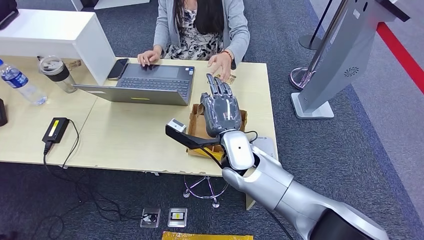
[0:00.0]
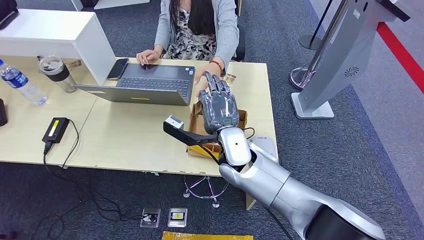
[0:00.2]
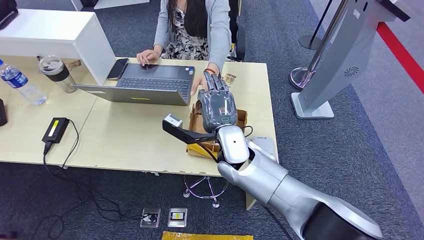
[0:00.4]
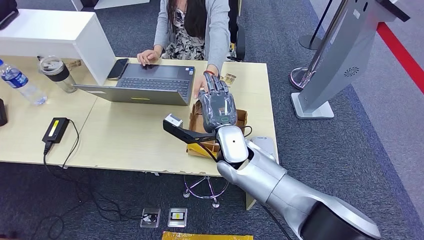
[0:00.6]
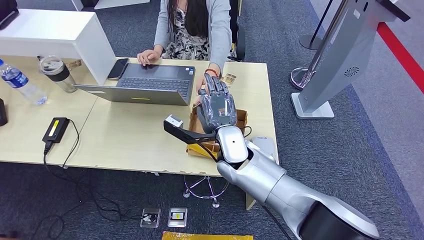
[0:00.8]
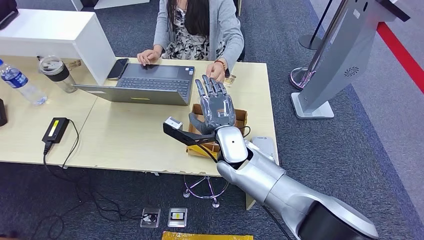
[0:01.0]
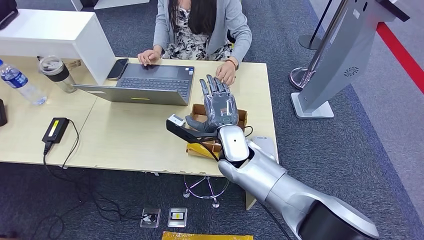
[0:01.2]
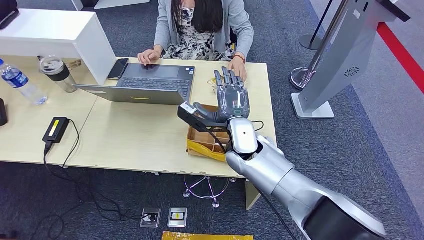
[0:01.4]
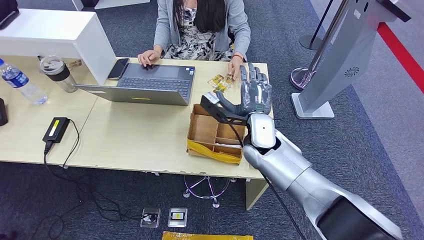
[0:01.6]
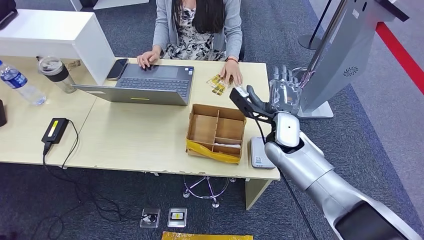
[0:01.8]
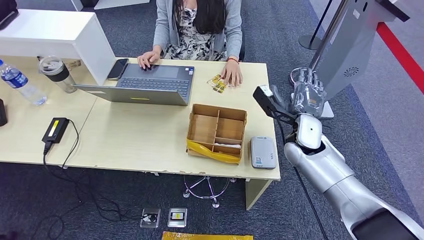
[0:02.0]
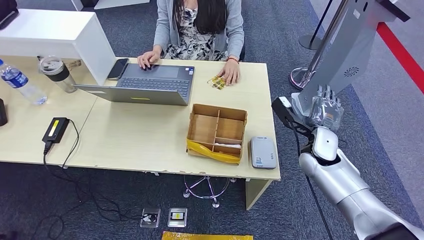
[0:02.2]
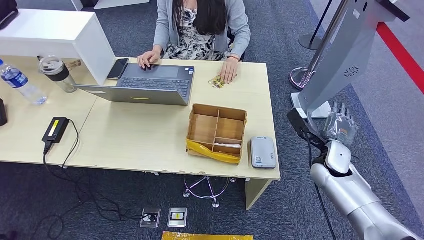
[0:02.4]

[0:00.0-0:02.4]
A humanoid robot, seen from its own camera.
Step, 0.0 to 2.4 s: Hand the room key to the person.
0.0 to 1.2 s: The hands move only a little.
1.2 to 2.4 s: The right hand travels to the right by about 25 cm.

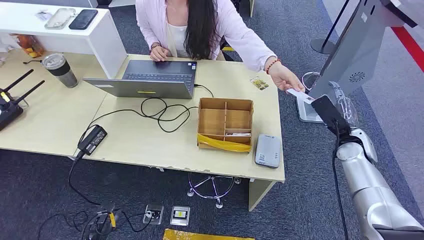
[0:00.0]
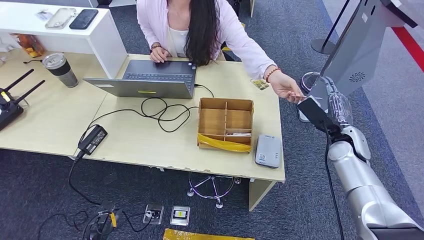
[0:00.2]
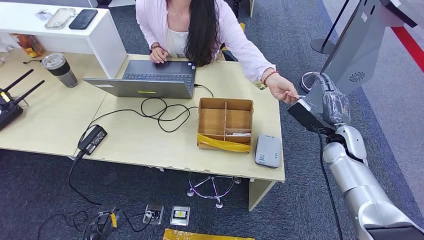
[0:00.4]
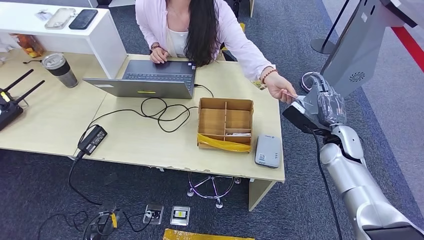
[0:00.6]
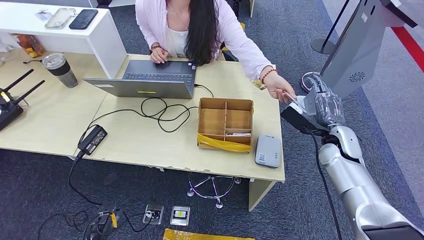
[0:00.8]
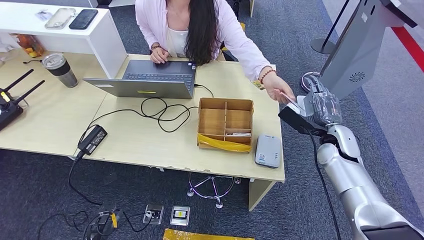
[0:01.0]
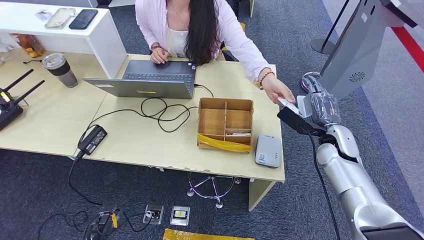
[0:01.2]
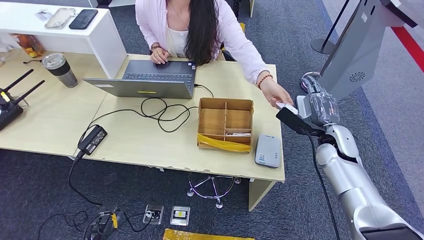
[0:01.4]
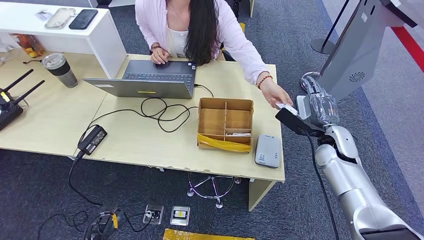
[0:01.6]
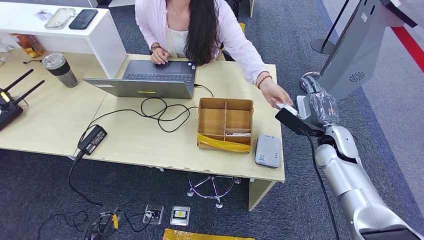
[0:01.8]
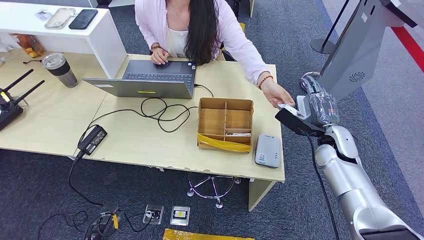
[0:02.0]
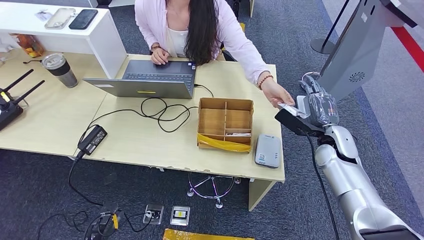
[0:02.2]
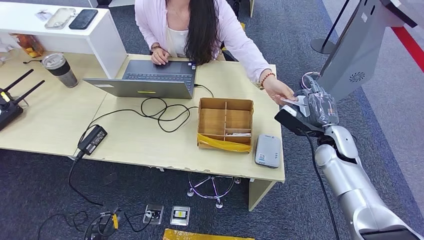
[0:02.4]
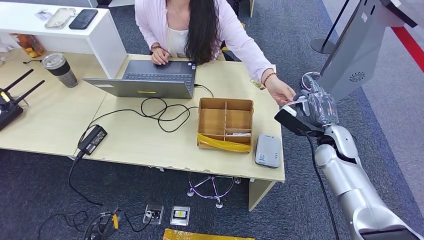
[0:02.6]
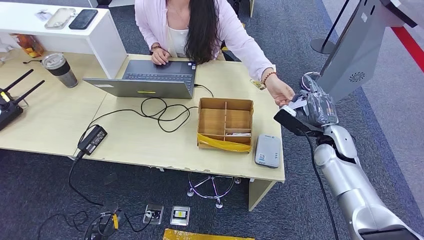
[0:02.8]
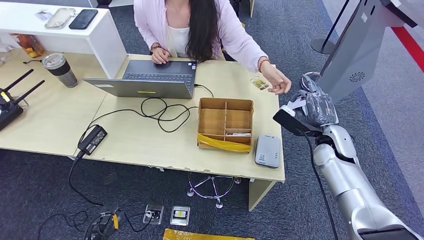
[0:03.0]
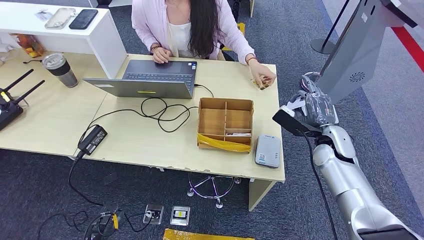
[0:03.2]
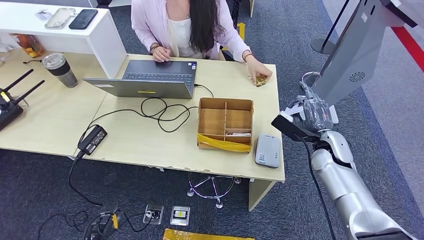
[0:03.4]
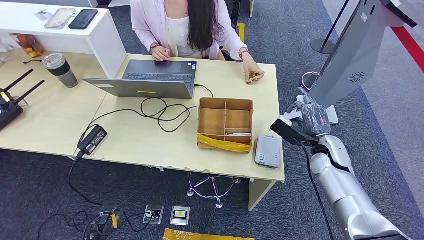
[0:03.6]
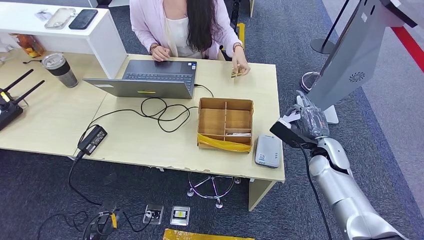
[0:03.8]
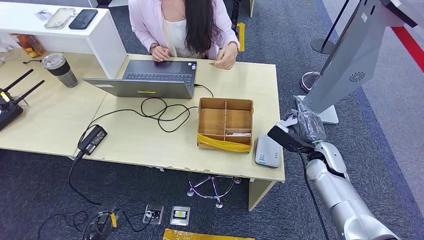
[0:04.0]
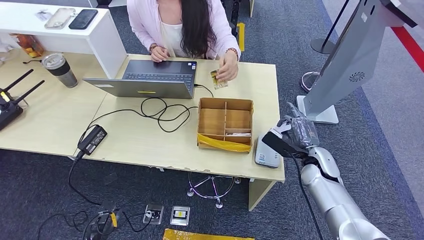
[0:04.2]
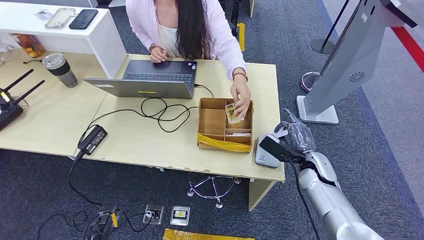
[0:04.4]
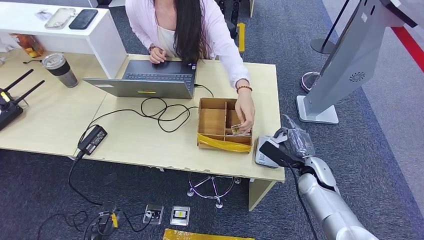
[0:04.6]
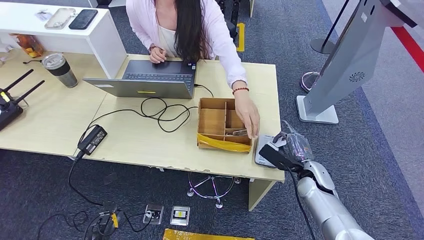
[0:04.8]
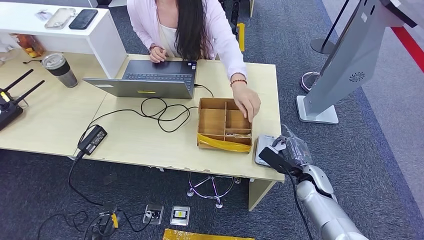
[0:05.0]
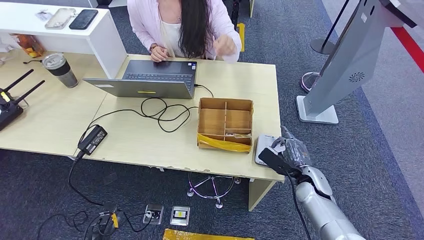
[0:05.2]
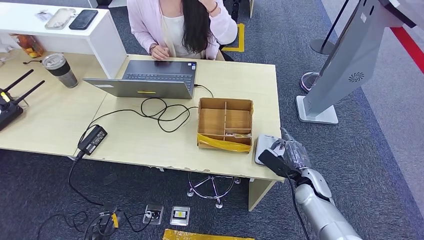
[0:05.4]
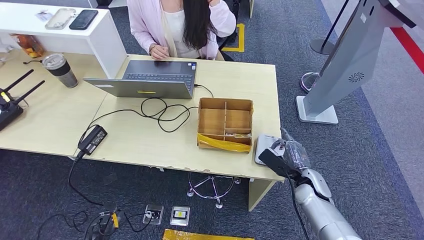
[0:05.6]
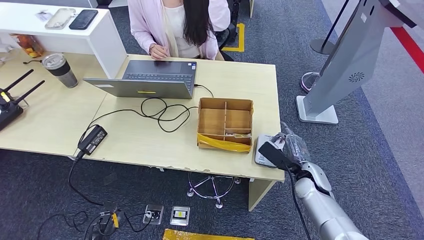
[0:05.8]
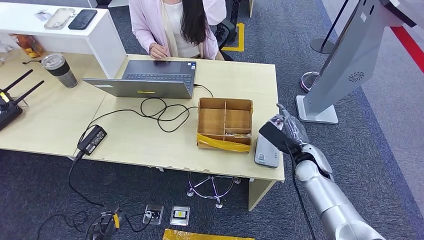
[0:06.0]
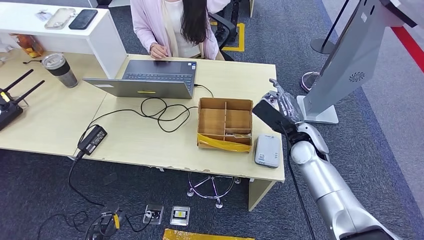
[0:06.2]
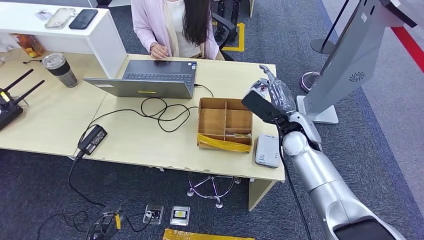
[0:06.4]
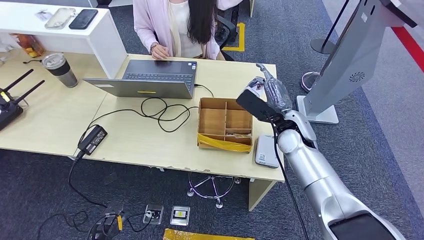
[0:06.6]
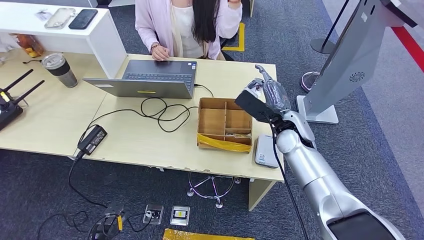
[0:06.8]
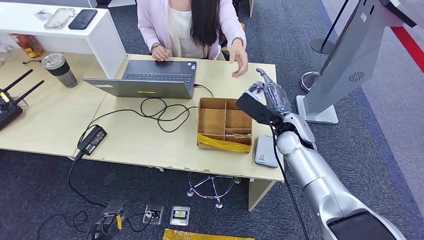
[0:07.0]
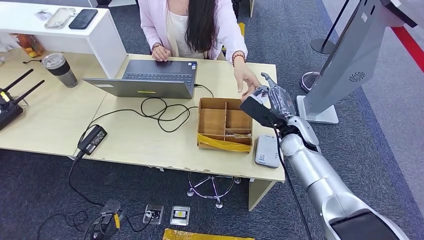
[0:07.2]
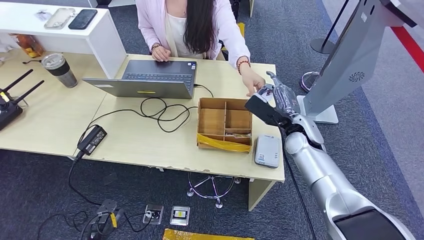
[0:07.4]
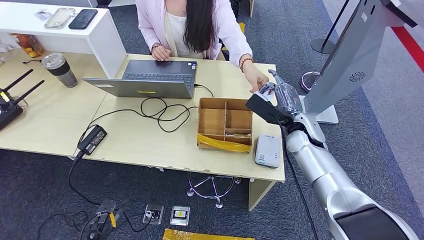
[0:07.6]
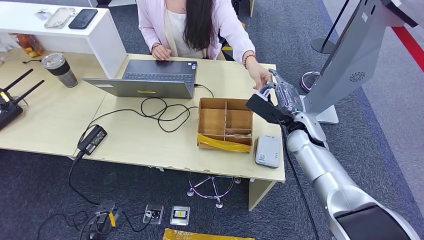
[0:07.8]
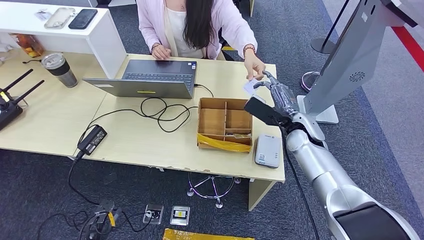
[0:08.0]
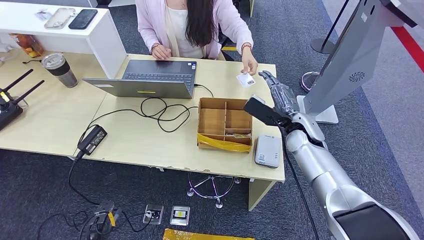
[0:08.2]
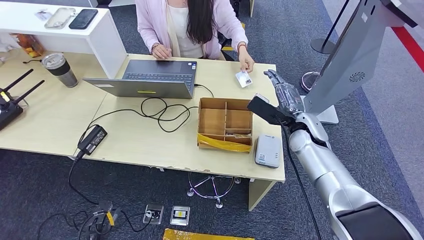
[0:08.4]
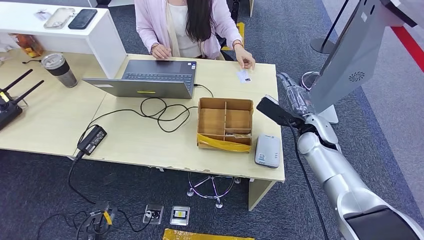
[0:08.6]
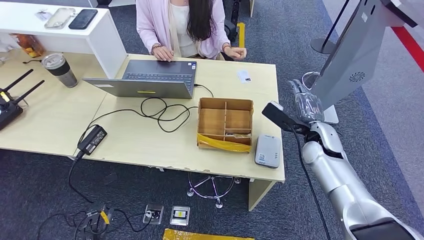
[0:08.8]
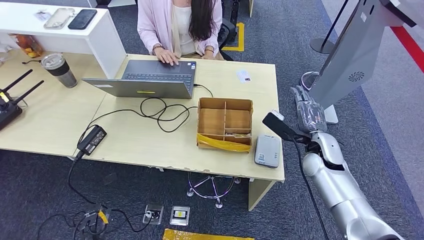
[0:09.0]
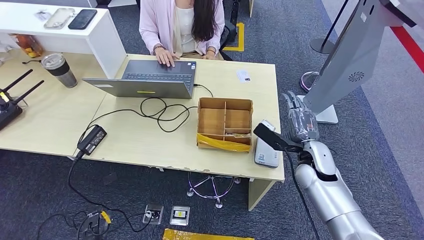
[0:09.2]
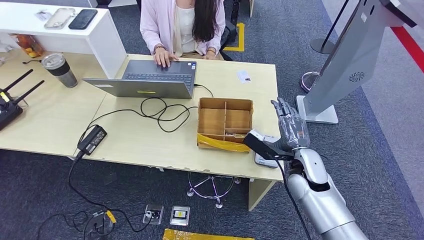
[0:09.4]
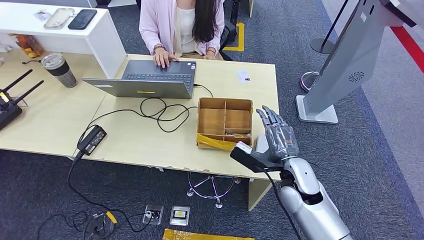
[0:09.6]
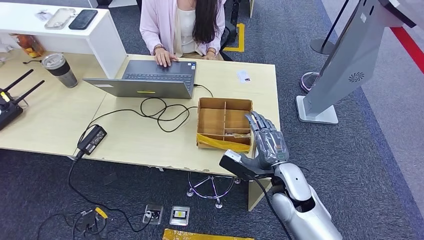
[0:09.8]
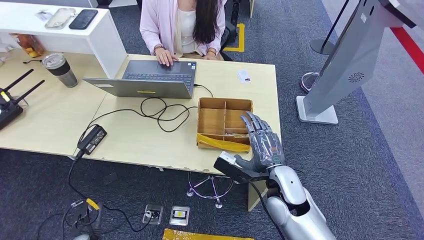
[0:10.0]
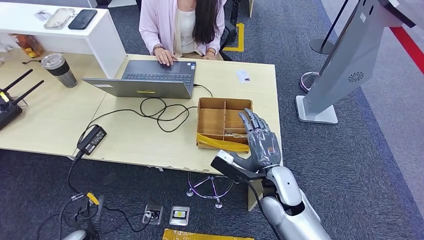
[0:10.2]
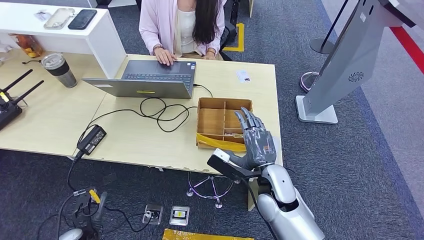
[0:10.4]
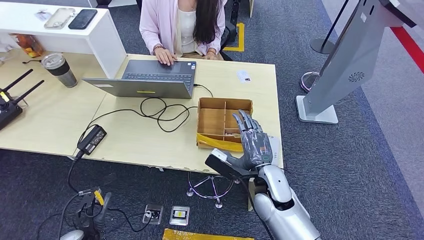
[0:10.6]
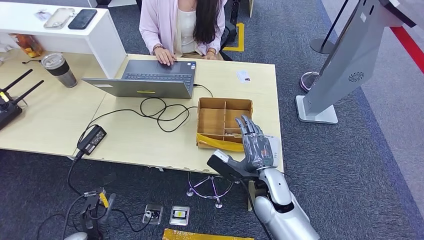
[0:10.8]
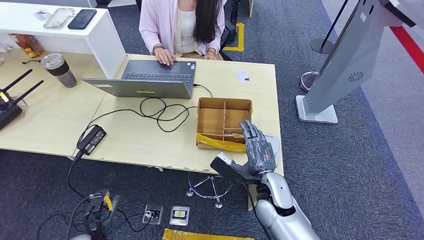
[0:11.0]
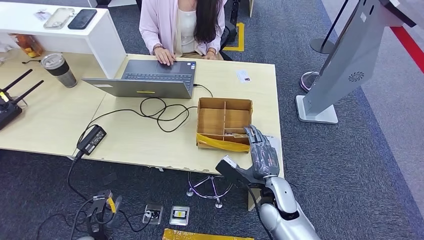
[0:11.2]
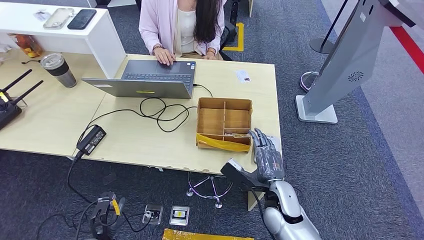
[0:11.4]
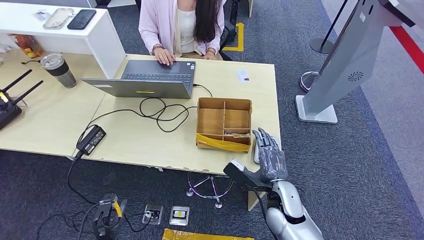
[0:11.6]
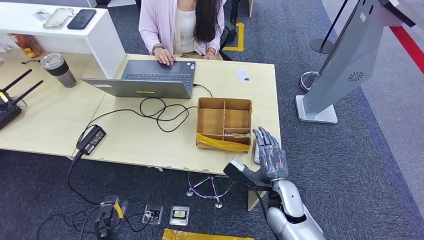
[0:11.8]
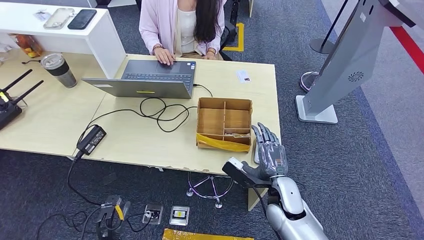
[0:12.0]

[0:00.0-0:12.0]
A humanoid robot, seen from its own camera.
Step, 0.0 to 3.8 s: Take the ID card from the person's hand.
Step, 4.0 to 5.6 s: Place the ID card on the card reader.
Step, 5.8 to 8.0 s: Hand the ID card to the person.
1.6 to 3.0 s: Both hands stay about where they are.
3.0 to 4.4 s: The right hand goes approximately 10 cm downward.
4.4 to 6.0 s: The hands make only small movements.
6.0 to 7.6 s: The right hand is displaced upward by about 5 cm.
7.6 to 9.0 s: The right hand goes about 5 cm to the right.
9.0 to 10.4 s: The left hand travels upward by about 5 cm, while the right hand is displaced to the left and backward by some 15 cm.
10.4 to 12.0 s: The right hand moves about 5 cm. Meanwhile the left hand ends up some 5 cm from where it was.

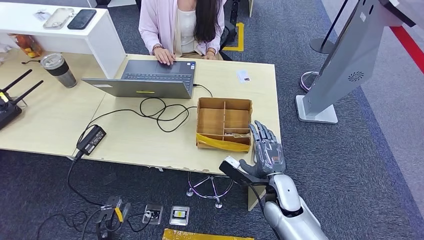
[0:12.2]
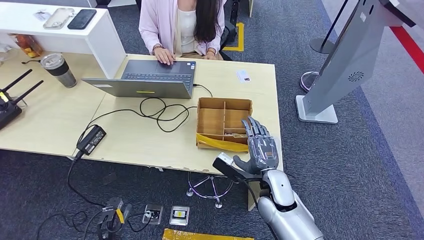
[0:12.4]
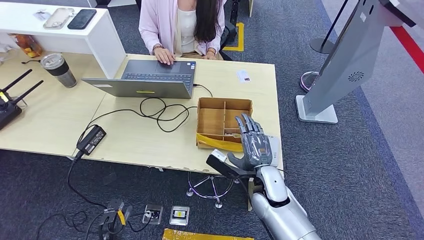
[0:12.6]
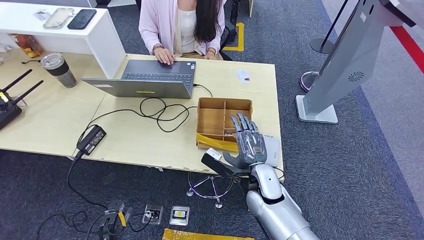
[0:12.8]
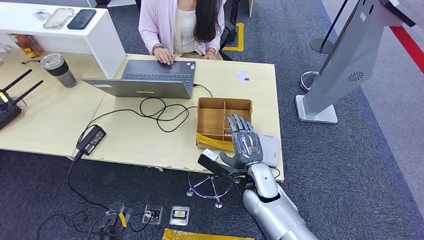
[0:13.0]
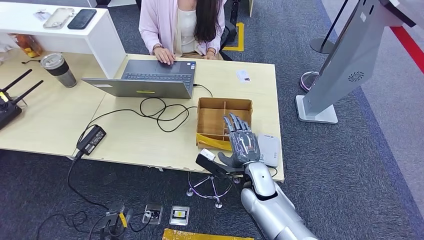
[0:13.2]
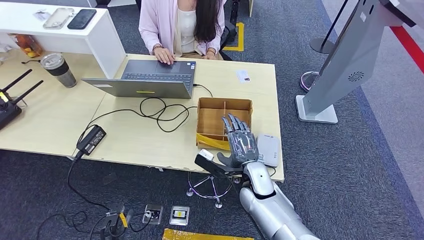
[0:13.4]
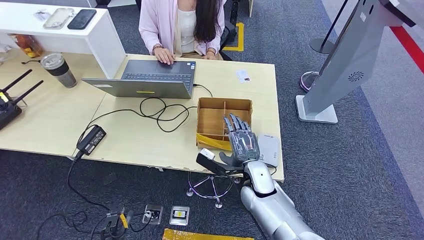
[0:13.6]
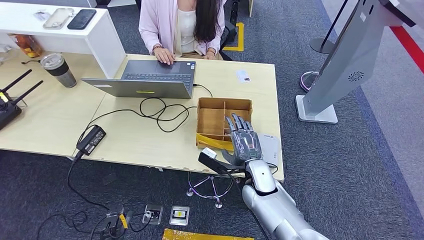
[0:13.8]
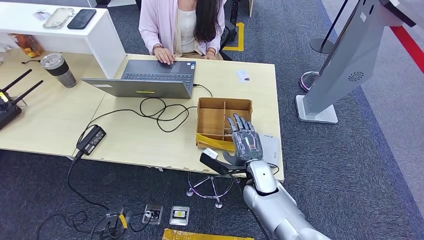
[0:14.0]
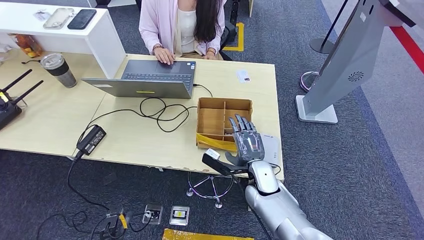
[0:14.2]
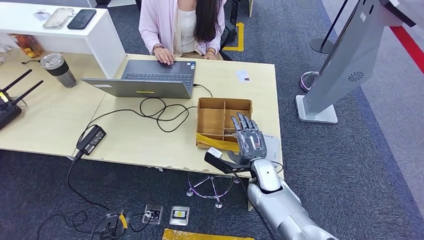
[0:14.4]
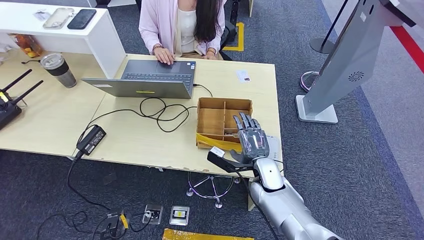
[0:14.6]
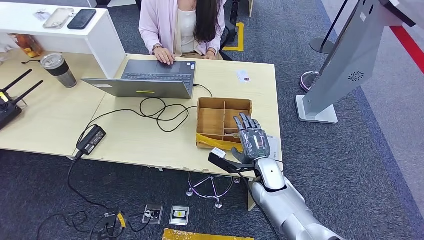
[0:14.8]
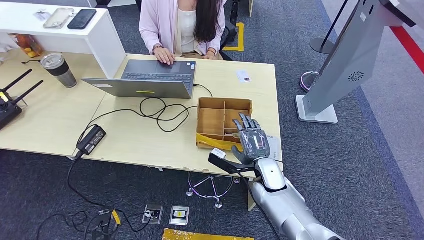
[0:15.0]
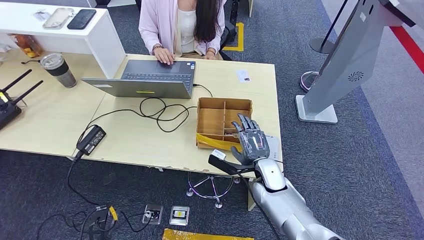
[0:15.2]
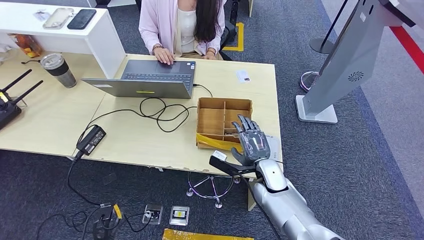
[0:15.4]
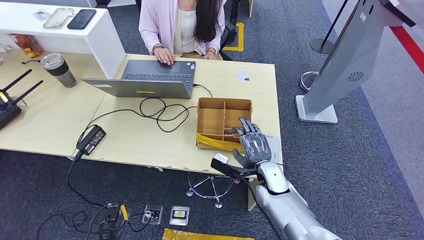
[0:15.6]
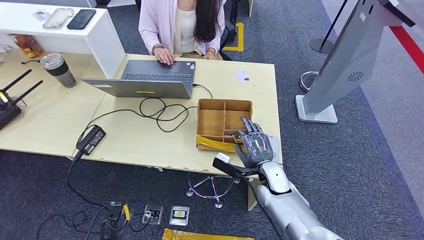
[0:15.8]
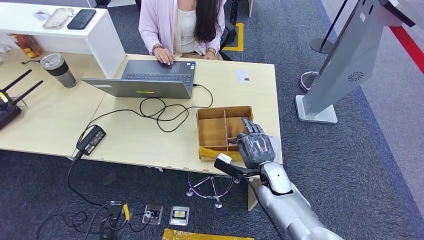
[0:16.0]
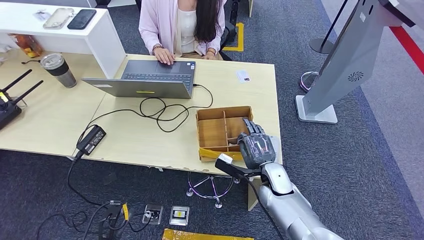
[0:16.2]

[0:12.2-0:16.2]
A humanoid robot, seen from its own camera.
Step, 12.2 to 14.4 s: Pick up the room key from the key card box.
12.2 to 13.6 s: The right hand shifts some 5 cm to the left.
13.6 to 14.8 s: There are only small adjustments of the hands.
14.8 to 16.2 s: The hands stay close to where they were, moving slightly.
